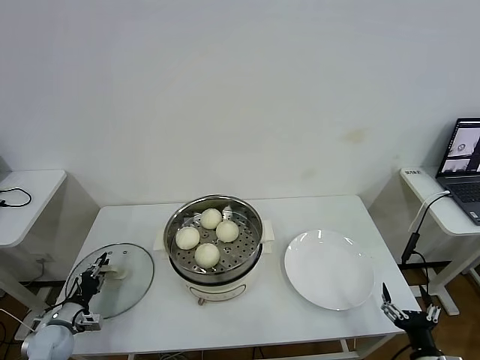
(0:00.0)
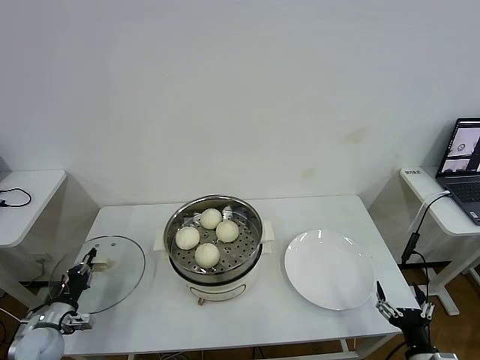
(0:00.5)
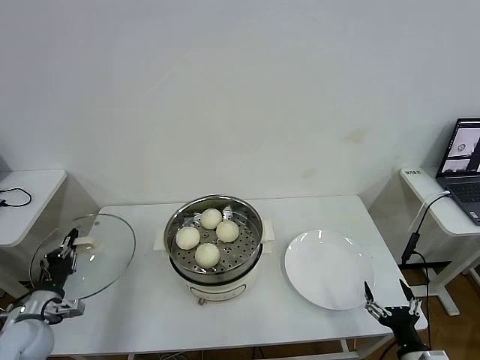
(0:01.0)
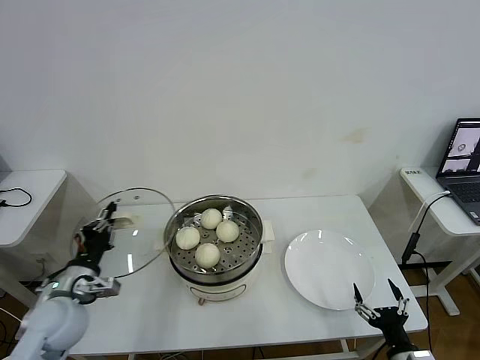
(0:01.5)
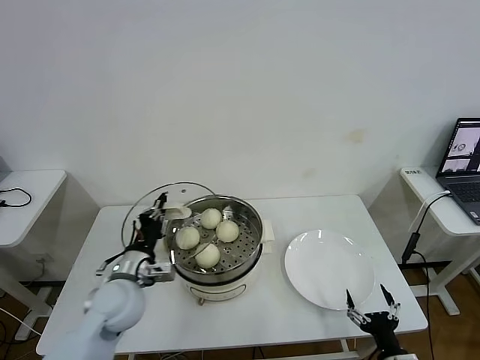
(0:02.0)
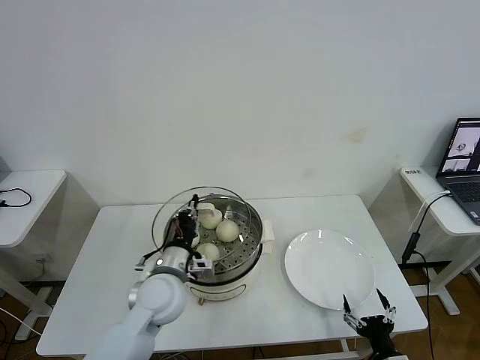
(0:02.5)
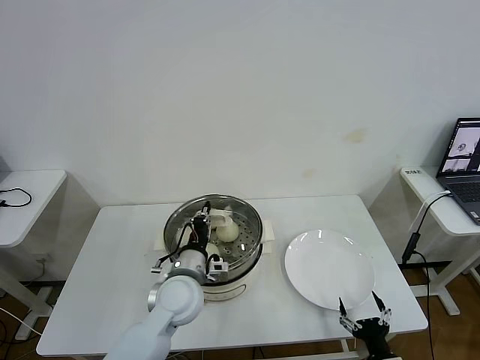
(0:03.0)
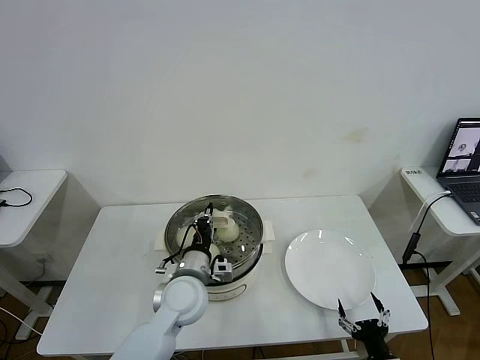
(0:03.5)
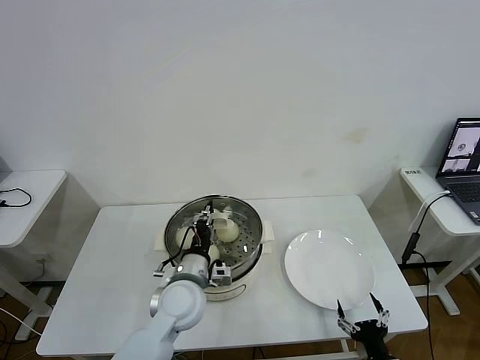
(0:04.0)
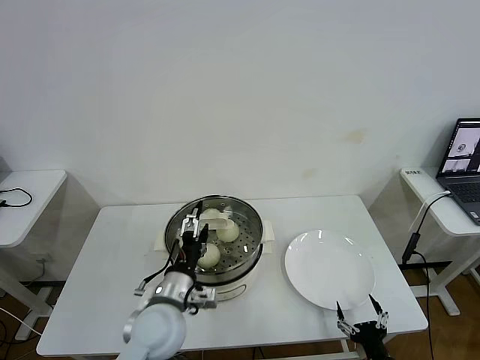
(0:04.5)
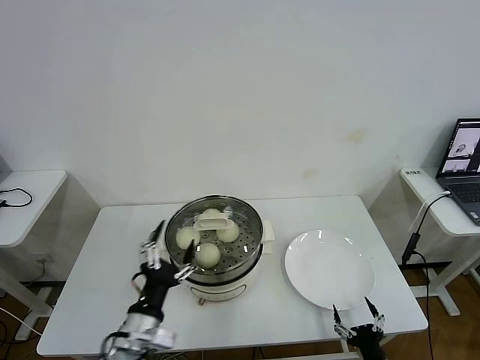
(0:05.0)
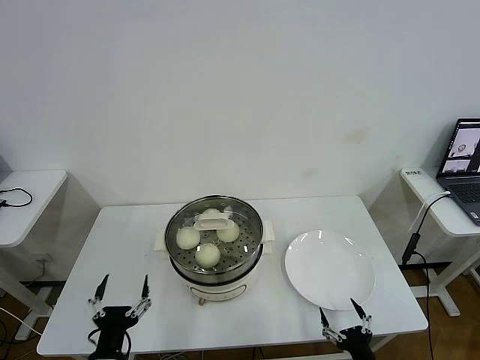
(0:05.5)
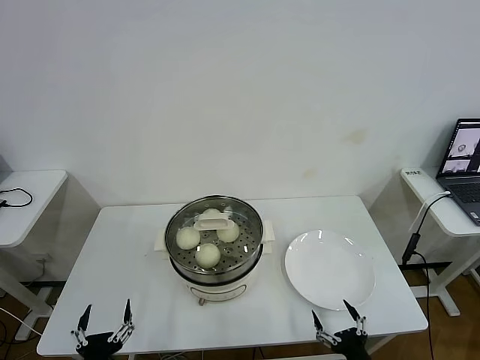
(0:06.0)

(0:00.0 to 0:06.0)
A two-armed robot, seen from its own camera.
Task of the whole recording: take steamed baozi put them in steamer then cover it.
Step, 0:00.5 - 0:04.0: Place the pot lid on the steamer with left gripper.
0:00.0 - 0:02.0: The right gripper moves some 5 cm, while the left gripper moves to the right and upward, roughly 30 cm, and closes its fingers.
0:02.0 - 0:04.0: The left gripper travels to the right by approximately 15 cm.
0:04.0 - 0:06.0: The left gripper is displaced backward and to the left by some 30 cm, and opens.
